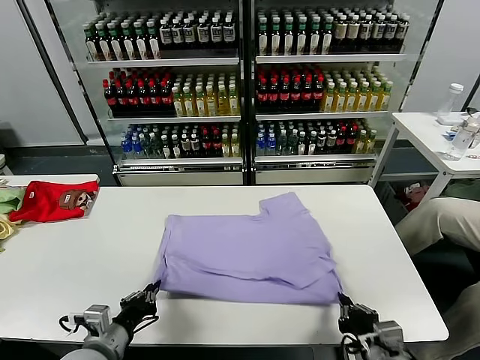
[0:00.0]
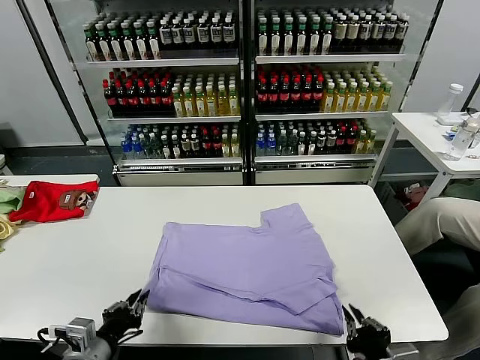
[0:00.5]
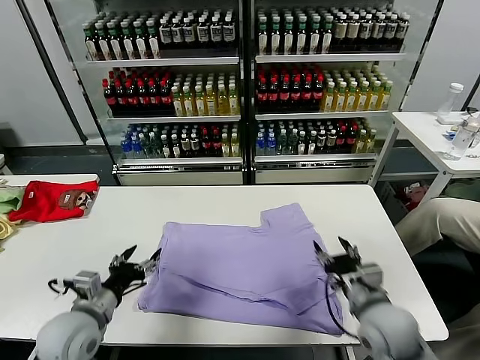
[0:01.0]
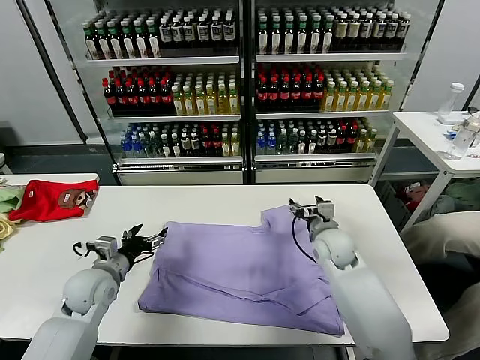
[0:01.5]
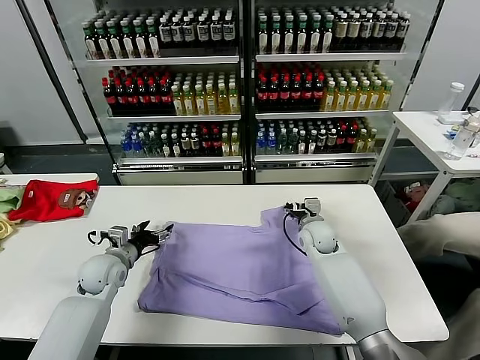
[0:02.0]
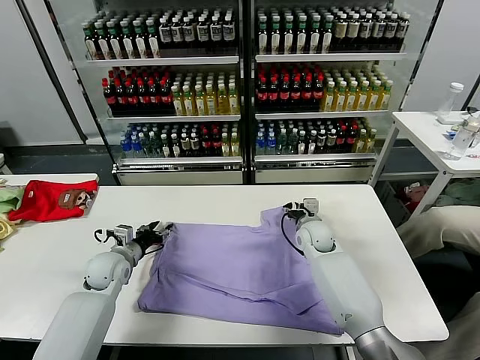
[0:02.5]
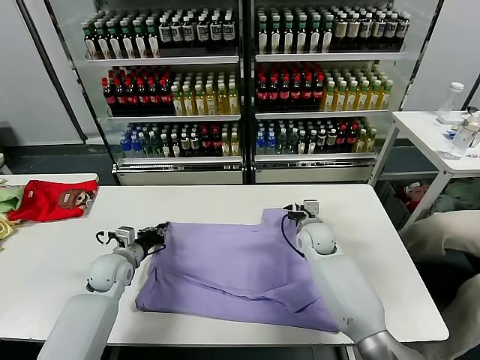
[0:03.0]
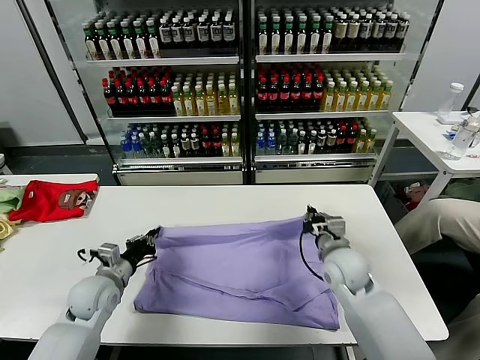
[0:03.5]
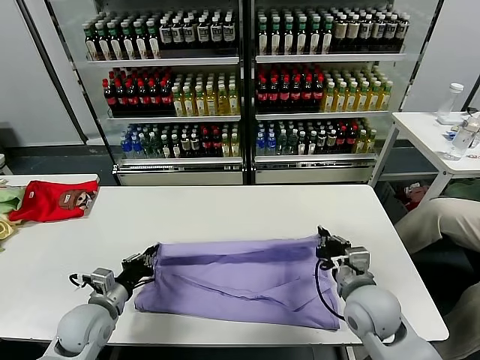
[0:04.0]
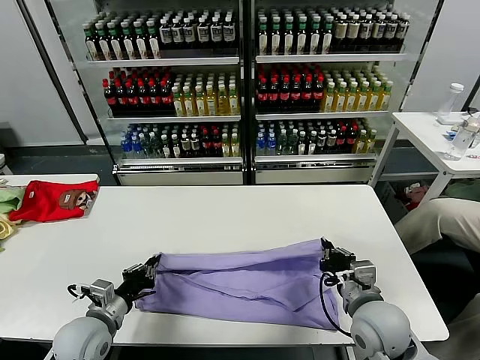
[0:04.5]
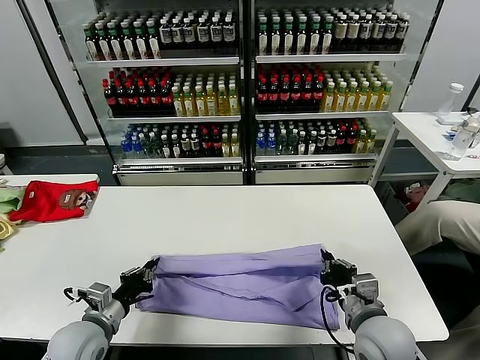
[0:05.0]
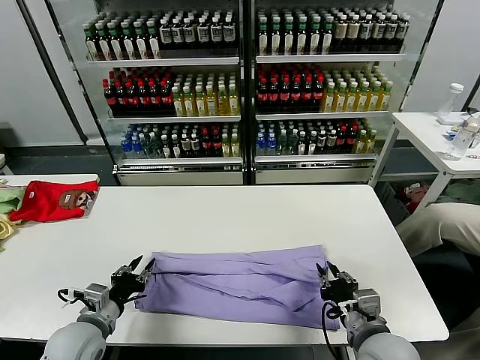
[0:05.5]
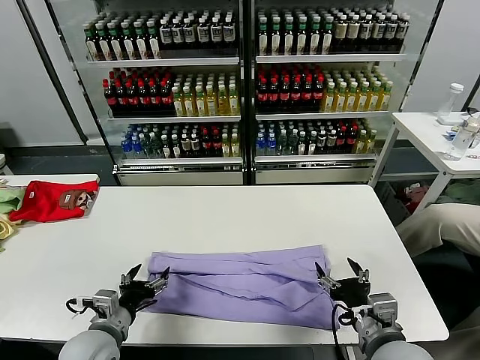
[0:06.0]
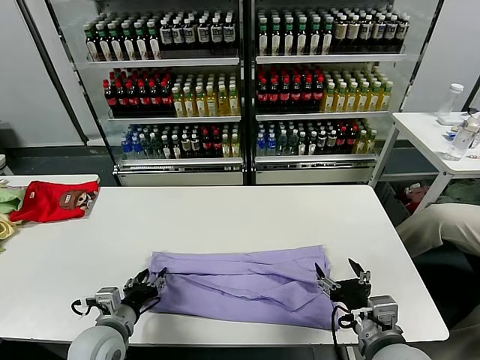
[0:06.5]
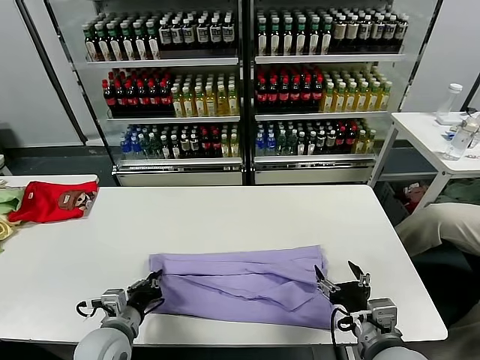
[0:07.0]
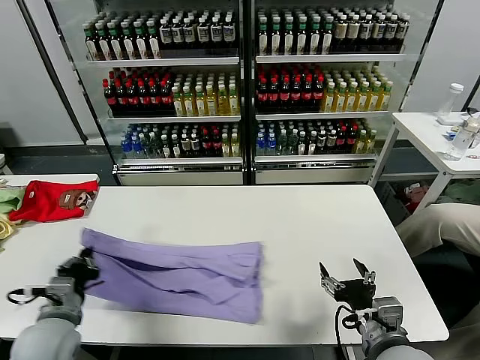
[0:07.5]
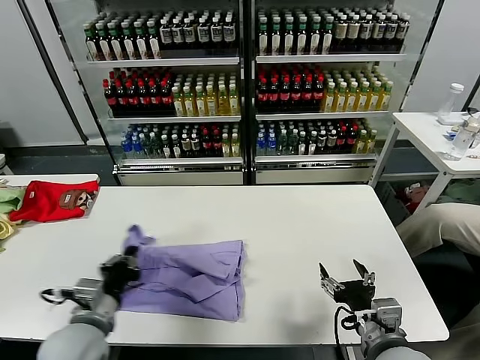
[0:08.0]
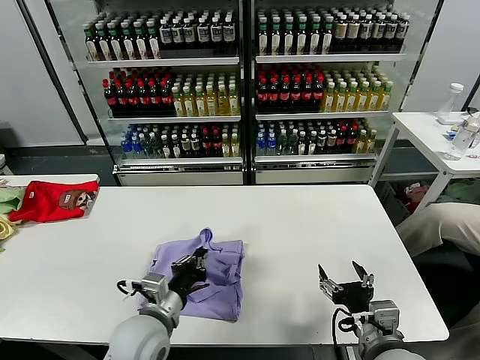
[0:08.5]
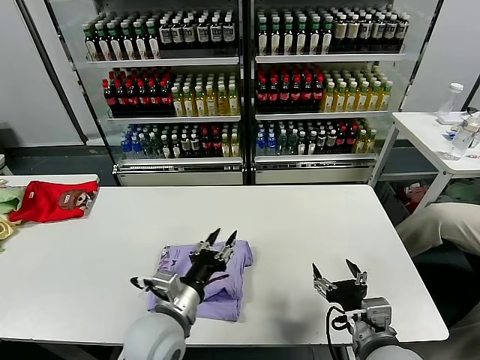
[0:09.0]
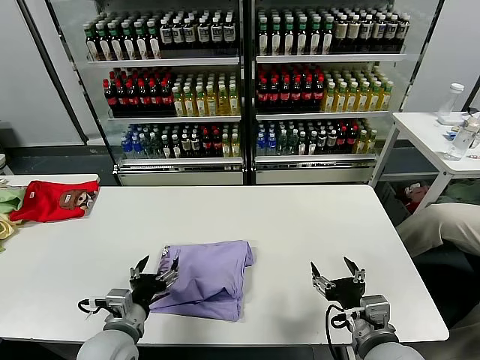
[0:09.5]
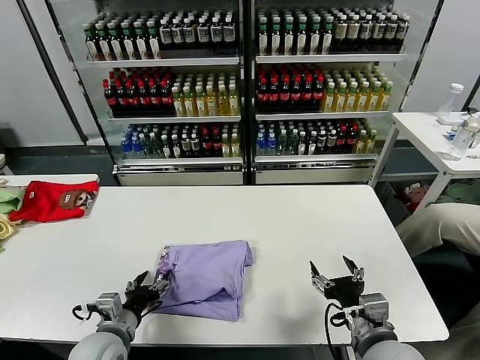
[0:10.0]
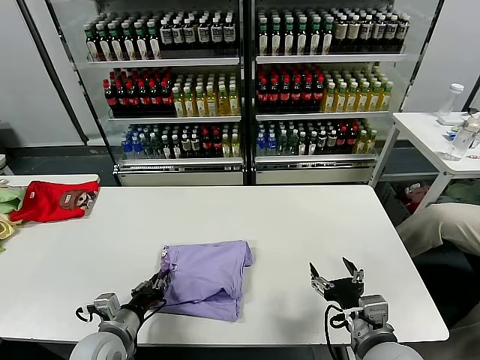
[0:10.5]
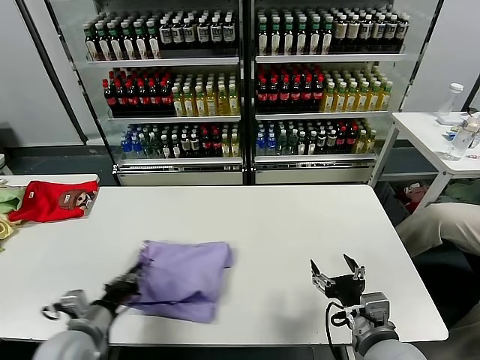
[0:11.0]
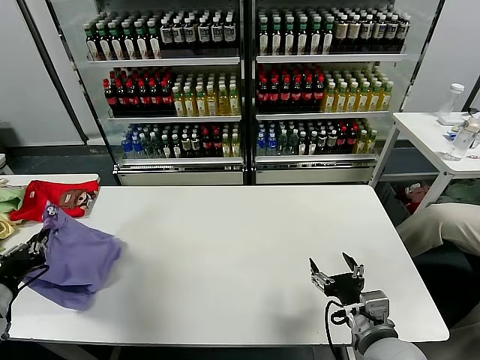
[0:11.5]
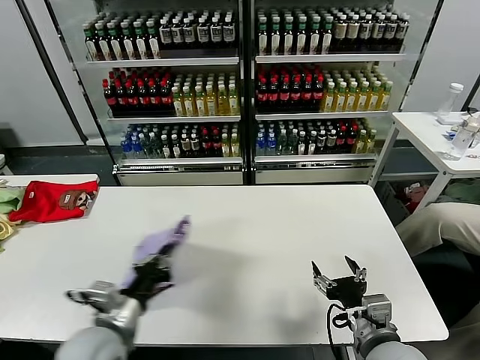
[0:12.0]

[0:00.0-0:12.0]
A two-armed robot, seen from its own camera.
Task of the whole recording: fold and organize the clothes.
Step, 0:01.0 to 0:03.0: use both grippers simultaneously to clamp the upper edge of the clothing fabric.
Step, 0:03.5 to 0:05.5: use both grippers to drag the upper edge of the fabric backward and fold it over the lower edge.
Step, 0:06.0 to 0:07.0: use the left gripper to clamp the left edge of the fabric.
Step, 0:07.5 to 0:09.0: use the left gripper to drag the left edge of the fabric to the left and folds it over the right edge.
0:00.0 to 0:02.0: The right gripper heads forward, covering roughly 35 cm, and opens up. The left gripper heads forward, covering some 20 cm, and opens its fingers.
0:02.0 to 0:04.0: The right gripper is displaced backward by approximately 20 cm, and closes up, while the left gripper is displaced backward by roughly 10 cm, and closes its fingers.
0:04.0 to 0:06.0: The left gripper shifts approximately 5 cm backward, and opens up, while the right gripper shifts roughly 10 cm backward, and opens up.
0:06.0 to 0:08.0: The left gripper travels upward by some 5 cm, and closes up.
0:08.0 to 0:10.0: The left gripper shifts roughly 10 cm downward, moves roughly 15 cm to the right and comes back, and opens its fingers.
0:10.0 to 0:12.0: The left gripper travels upward by approximately 10 cm, reaches about 20 cm to the left, then returns, and closes up.

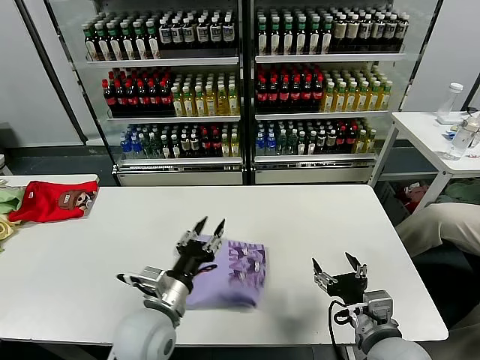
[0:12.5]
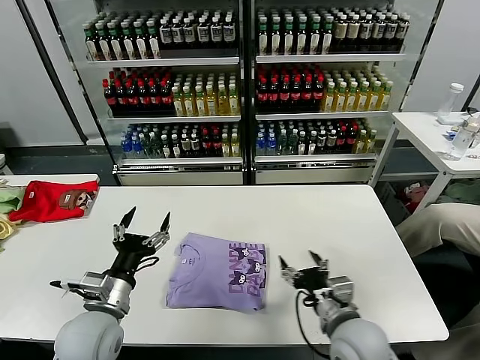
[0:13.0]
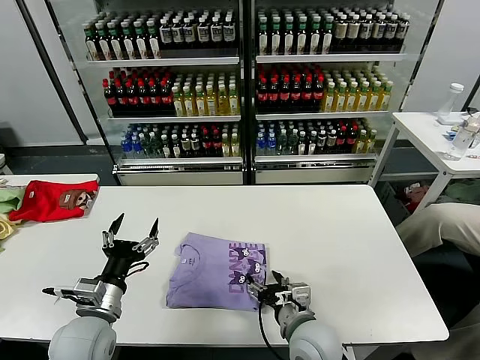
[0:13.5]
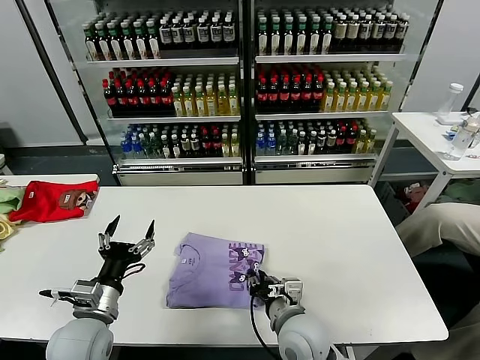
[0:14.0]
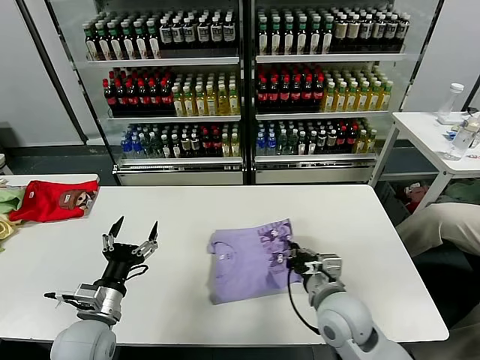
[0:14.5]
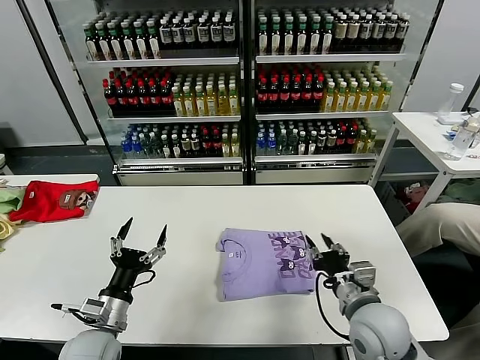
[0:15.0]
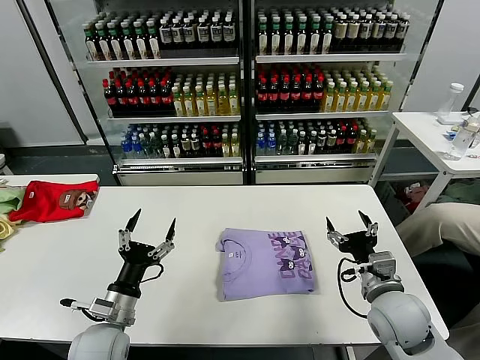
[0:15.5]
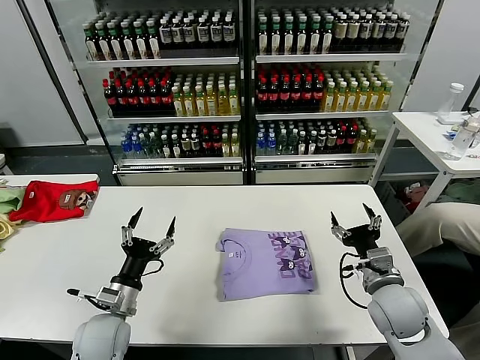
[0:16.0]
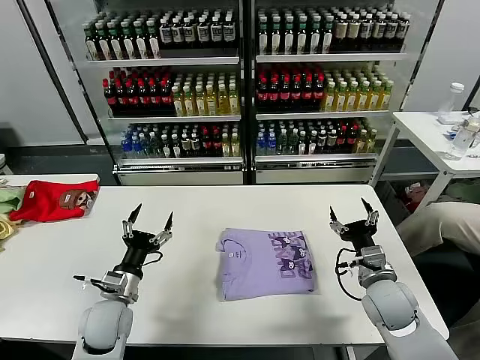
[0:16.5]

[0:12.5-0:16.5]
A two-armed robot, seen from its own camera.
Task of the whole recording: fold and organize the clothes.
Step, 0:13.0 to 0:15.0: Drag the clothes to the center of the table.
0:12.5 to 0:14.5: The left gripper goes roughly 15 cm to the left, and opens up. Meanwhile the right gripper moves forward and to the left, some 10 cm, and closes.
0:14.5 to 0:16.5: The right gripper moves to the right, approximately 10 cm, and opens. Meanwhile the left gripper shifts some 5 cm forward.

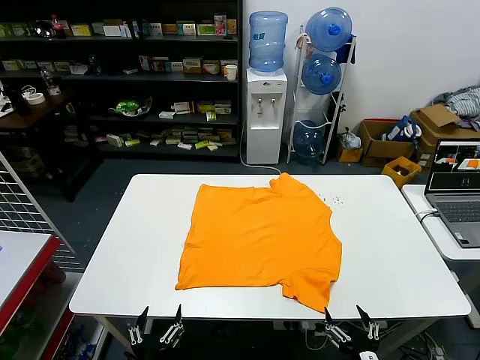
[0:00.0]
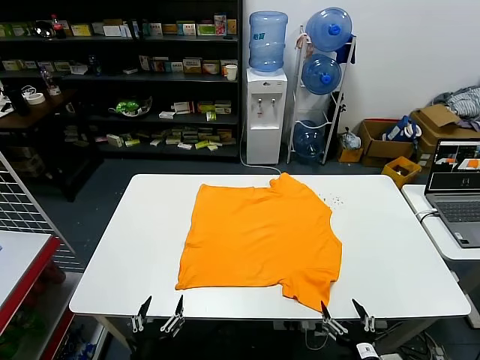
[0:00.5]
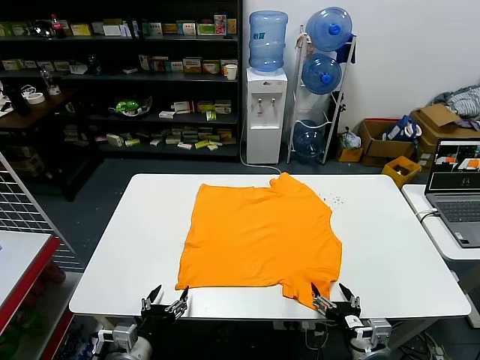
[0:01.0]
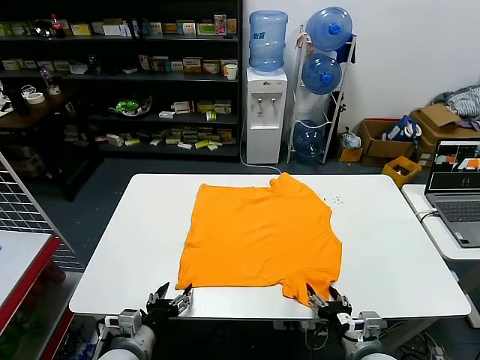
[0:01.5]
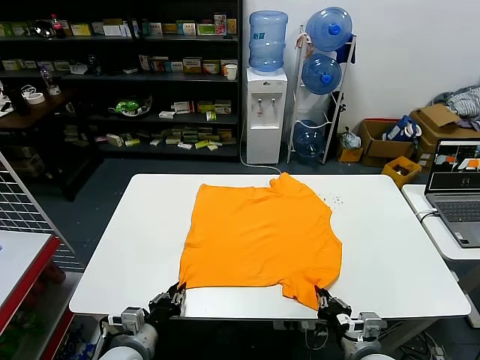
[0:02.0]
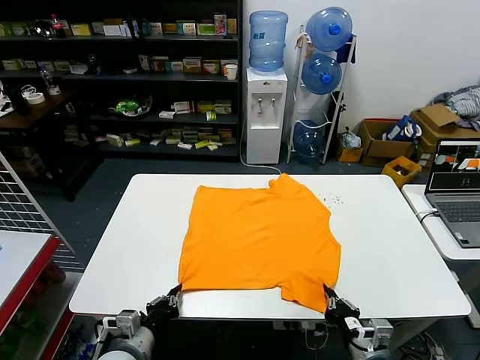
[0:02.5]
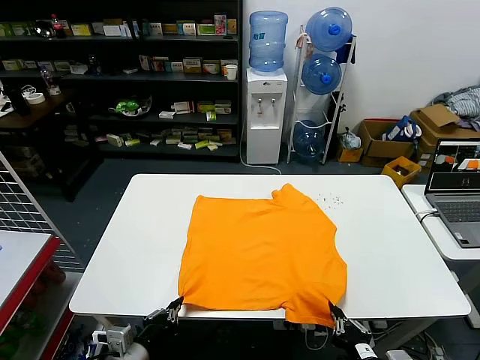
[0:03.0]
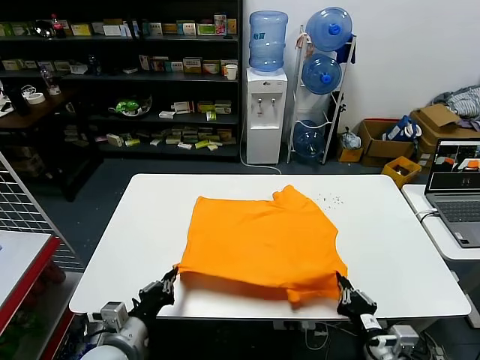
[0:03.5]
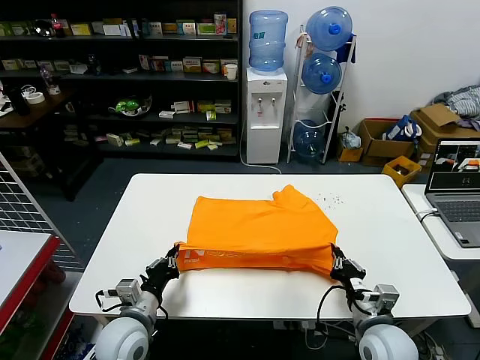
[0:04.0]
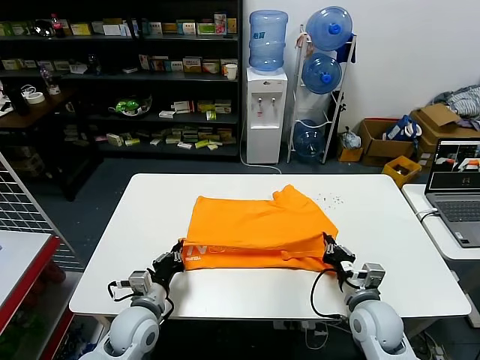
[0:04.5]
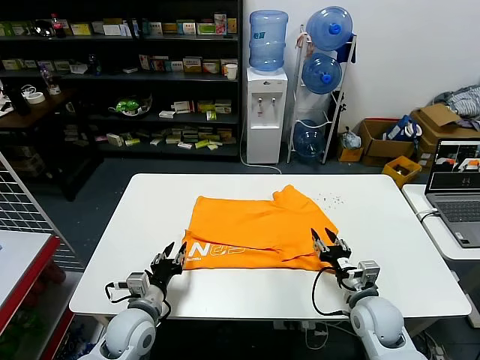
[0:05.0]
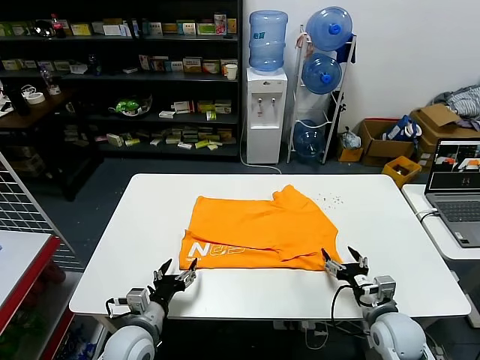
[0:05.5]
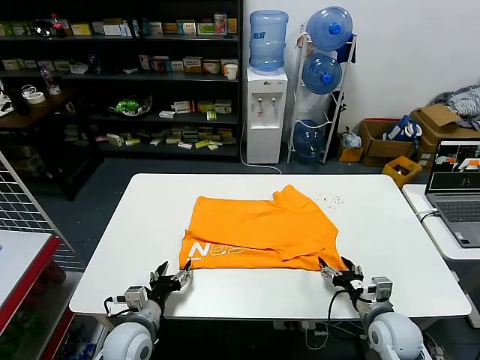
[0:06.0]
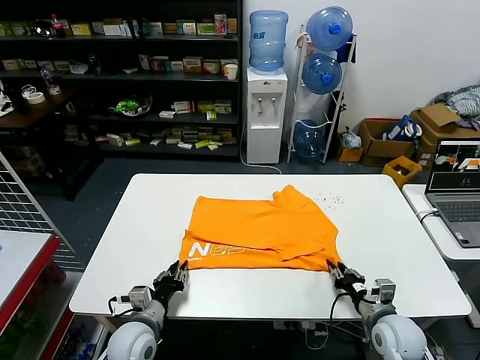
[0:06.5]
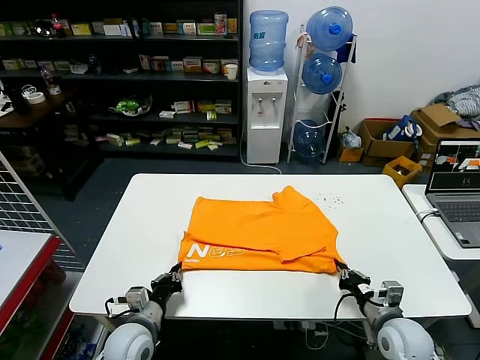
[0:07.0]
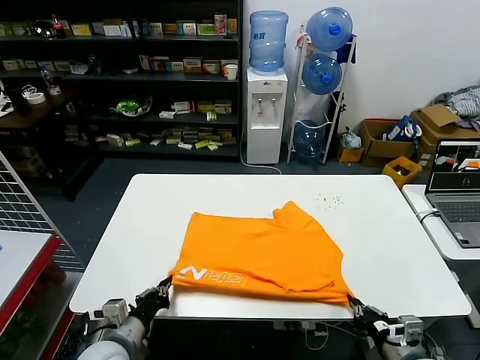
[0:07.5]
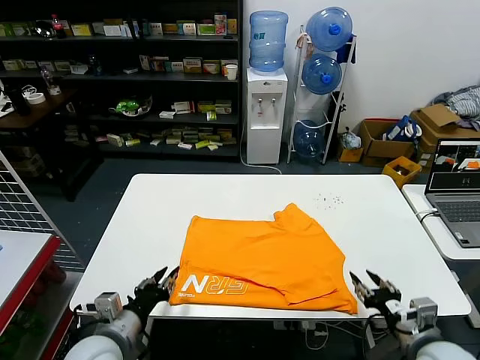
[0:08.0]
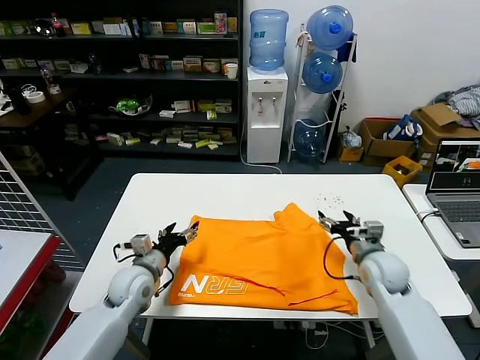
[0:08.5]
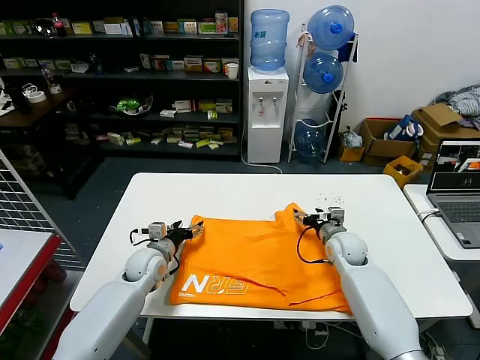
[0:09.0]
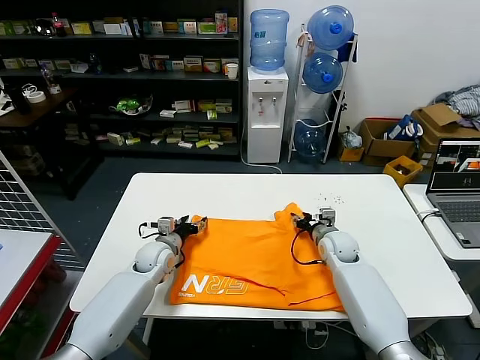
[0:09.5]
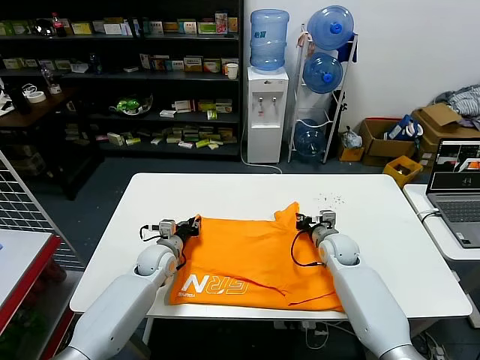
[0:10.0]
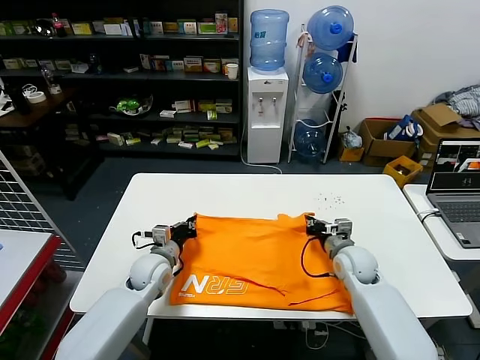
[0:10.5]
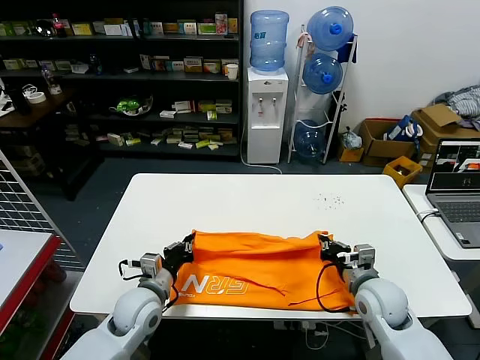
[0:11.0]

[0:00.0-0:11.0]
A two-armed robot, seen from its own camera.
Task of the whole recording: fold and organize the clothes.
Step, 0:00.0 to 0:02.0: use both grippers simultaneously to clamp the lower edge of the clothing fabric.
Step, 0:02.5 to 0:05.0: use both grippers to drag the lower edge of the fabric forward and fold it over the upper edge.
Step, 0:05.5 to 0:07.5: Drag the clothes downward with both gripper.
Step, 0:08.0 to 0:10.0: use both grippers simultaneously to clamp the upper edge of the clothing fabric.
0:02.0 to 0:03.5: The two grippers go roughly 5 cm upward. The right gripper travels backward and back again, some 10 cm each way.
0:03.5 to 0:05.5: The left gripper heads downward and forward, covering about 10 cm, and opens up. The right gripper shifts approximately 15 cm forward, downward and to the right, and opens up.
0:05.5 to 0:07.5: The right gripper is displaced backward by some 10 cm, and closes its fingers; the left gripper moves approximately 5 cm, and closes its fingers.
0:07.5 to 0:09.0: Both grippers move forward, roughly 25 cm. The left gripper opens. The right gripper opens its fingers.
0:09.0 to 0:11.0: Both grippers move backward, some 15 cm. The right gripper closes. The left gripper closes its fingers.
